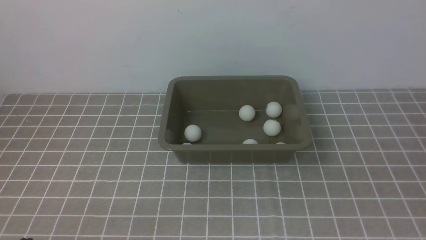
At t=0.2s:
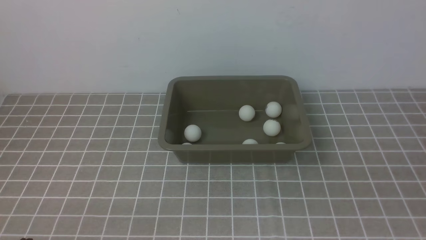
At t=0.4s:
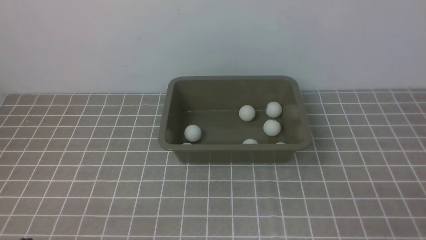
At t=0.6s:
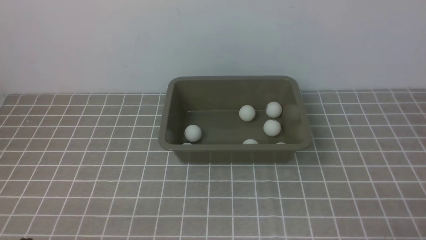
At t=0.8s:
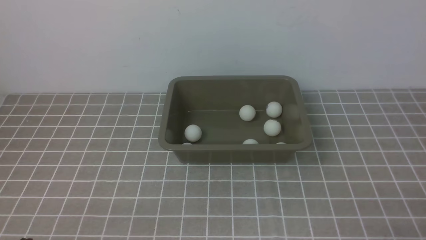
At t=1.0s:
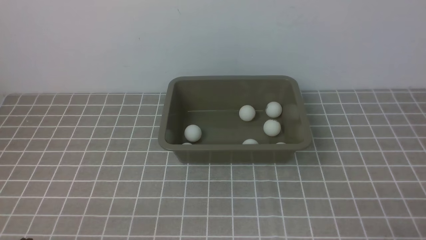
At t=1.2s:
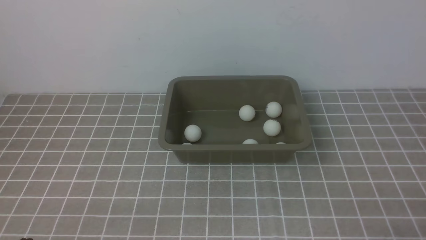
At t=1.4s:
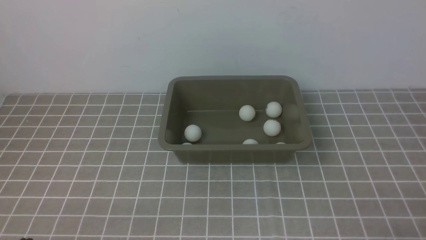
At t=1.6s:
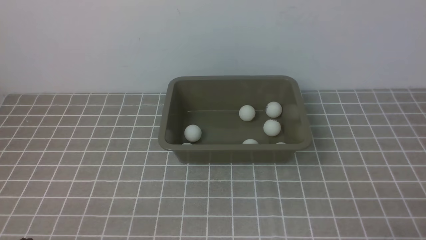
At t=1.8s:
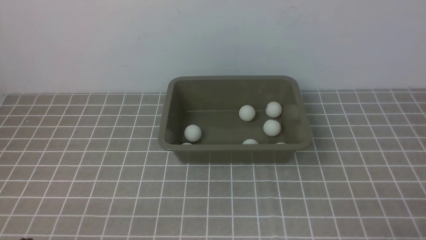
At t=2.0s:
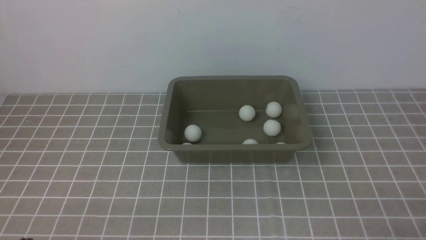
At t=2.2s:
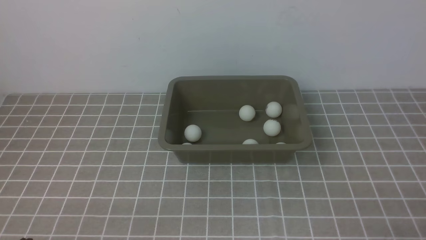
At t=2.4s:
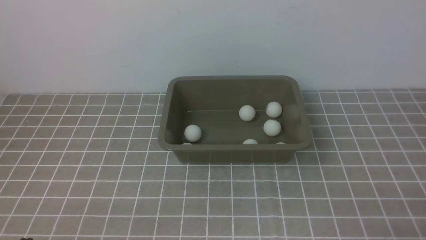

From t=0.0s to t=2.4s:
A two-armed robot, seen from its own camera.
From t=1.2s to t=2.4s: The two grippers keep their place.

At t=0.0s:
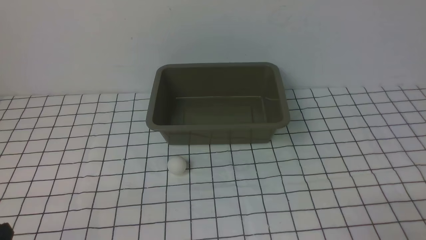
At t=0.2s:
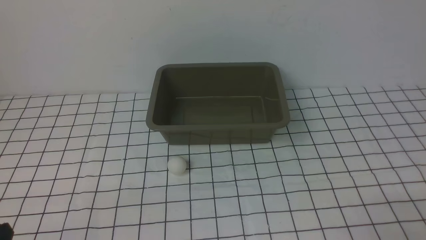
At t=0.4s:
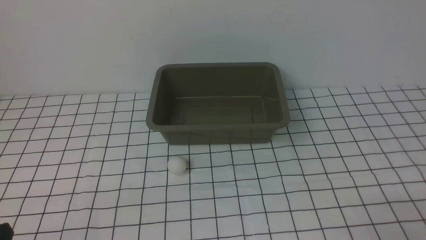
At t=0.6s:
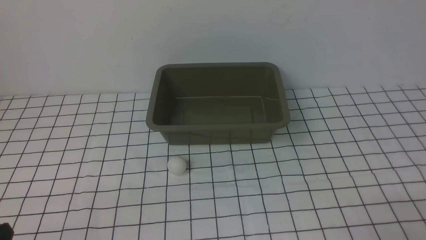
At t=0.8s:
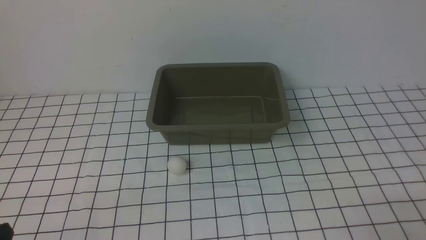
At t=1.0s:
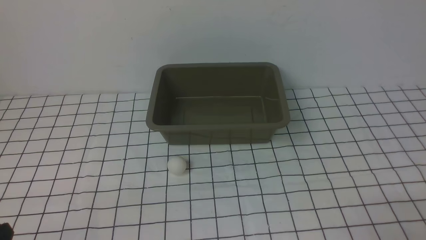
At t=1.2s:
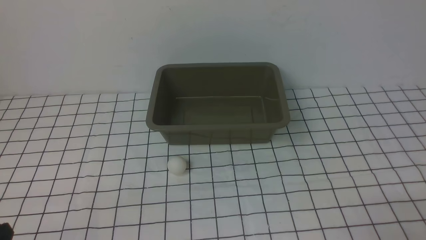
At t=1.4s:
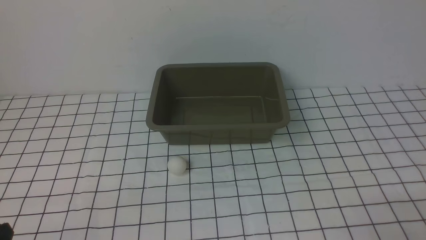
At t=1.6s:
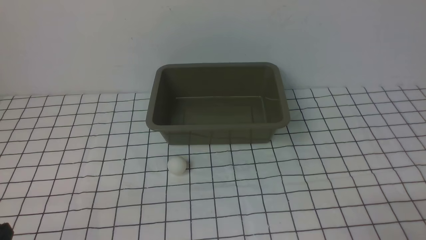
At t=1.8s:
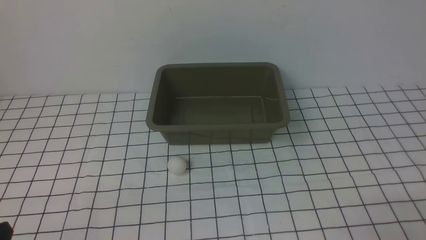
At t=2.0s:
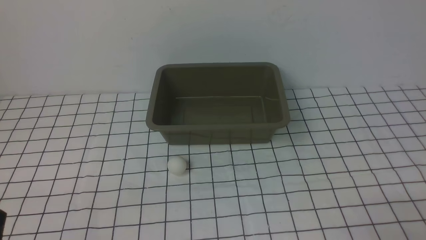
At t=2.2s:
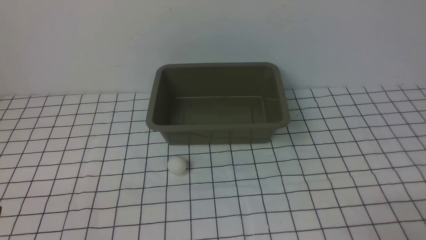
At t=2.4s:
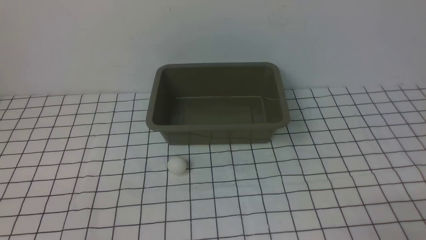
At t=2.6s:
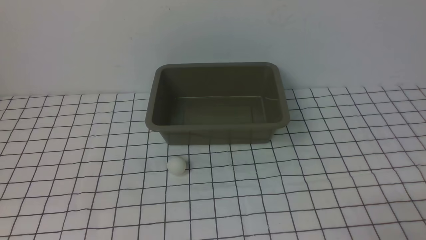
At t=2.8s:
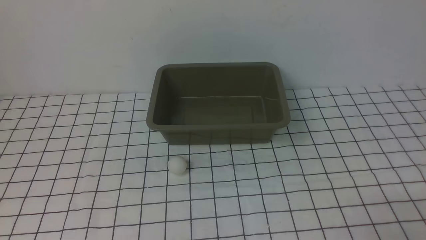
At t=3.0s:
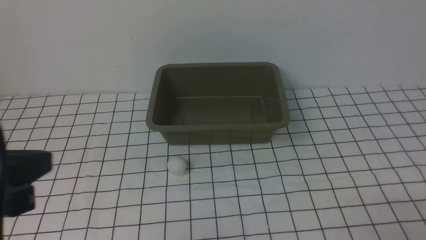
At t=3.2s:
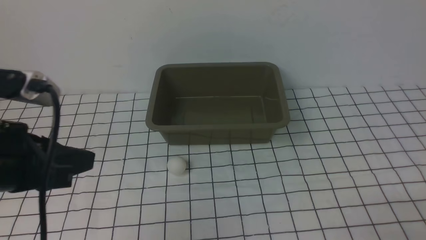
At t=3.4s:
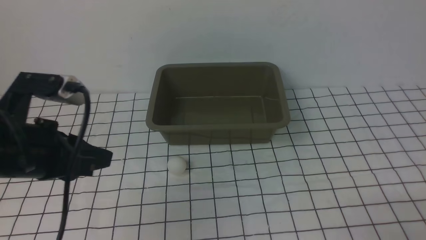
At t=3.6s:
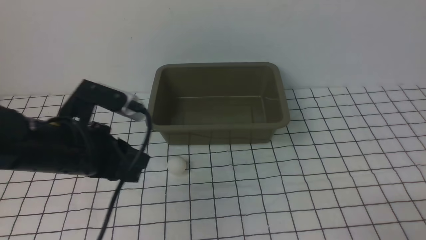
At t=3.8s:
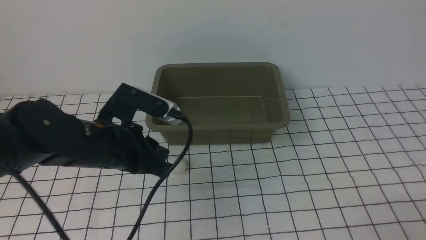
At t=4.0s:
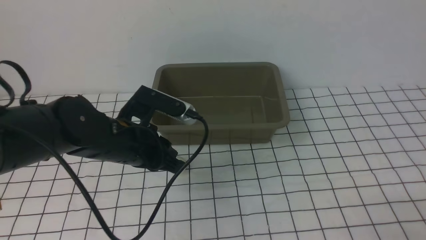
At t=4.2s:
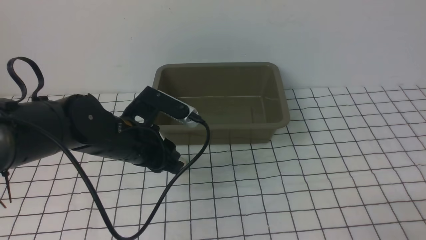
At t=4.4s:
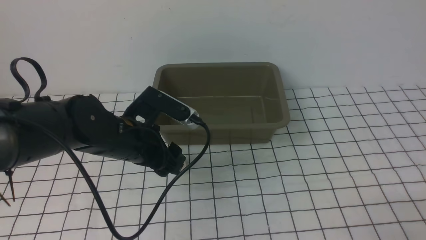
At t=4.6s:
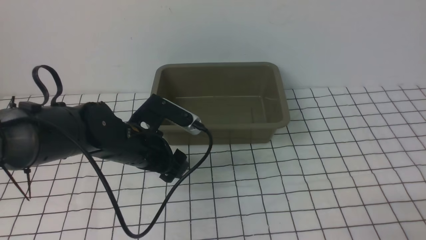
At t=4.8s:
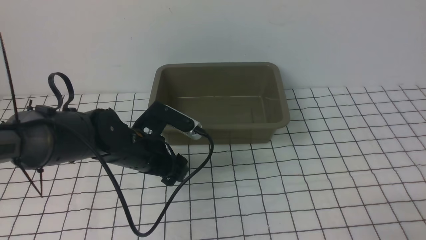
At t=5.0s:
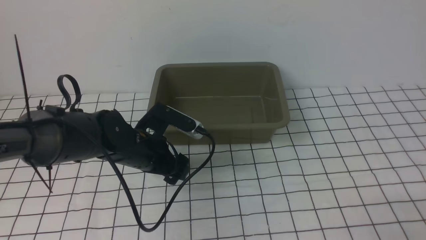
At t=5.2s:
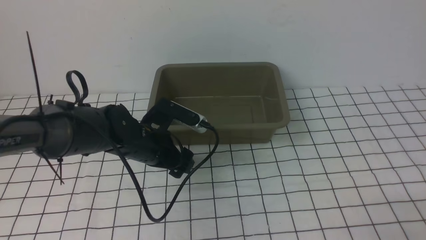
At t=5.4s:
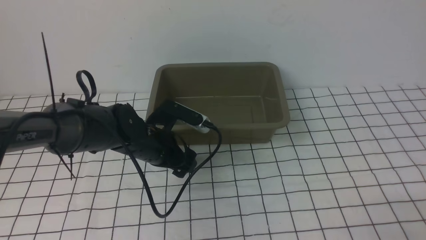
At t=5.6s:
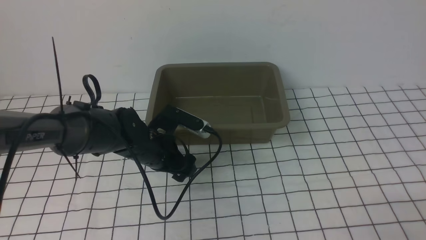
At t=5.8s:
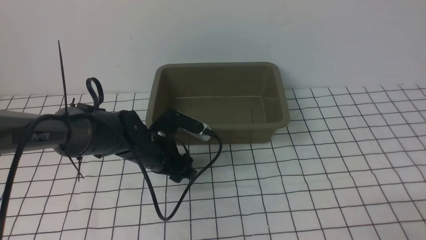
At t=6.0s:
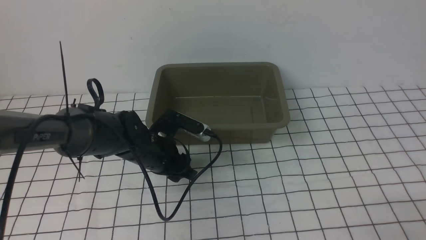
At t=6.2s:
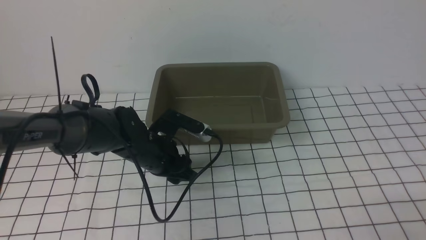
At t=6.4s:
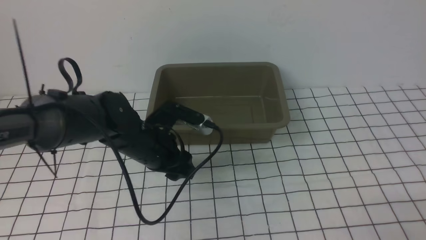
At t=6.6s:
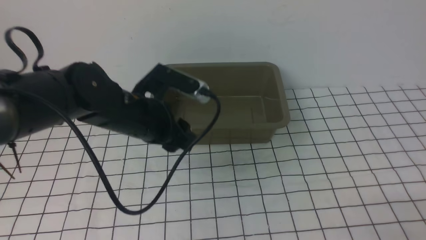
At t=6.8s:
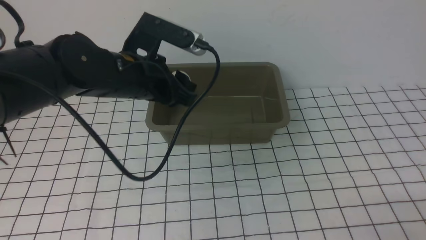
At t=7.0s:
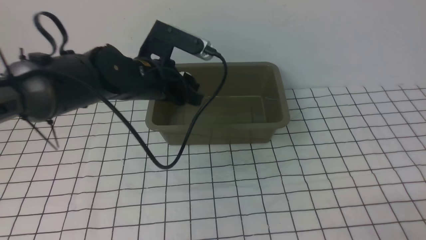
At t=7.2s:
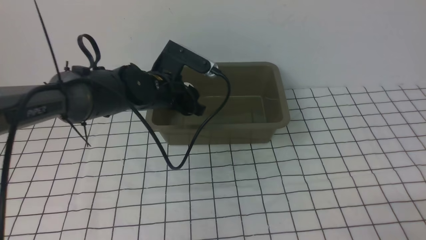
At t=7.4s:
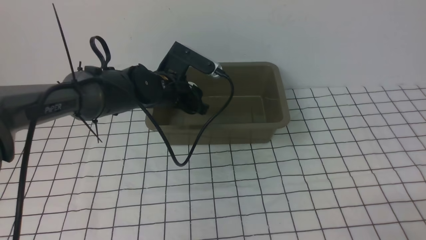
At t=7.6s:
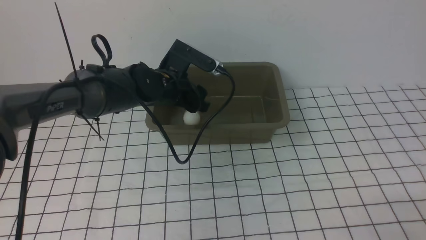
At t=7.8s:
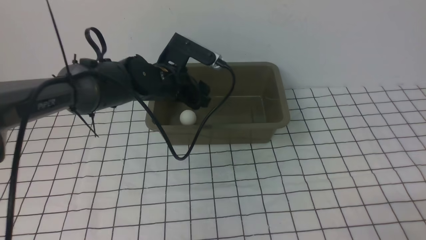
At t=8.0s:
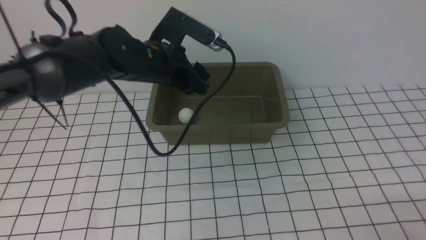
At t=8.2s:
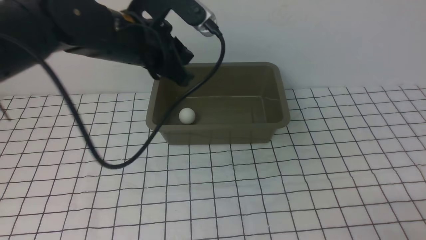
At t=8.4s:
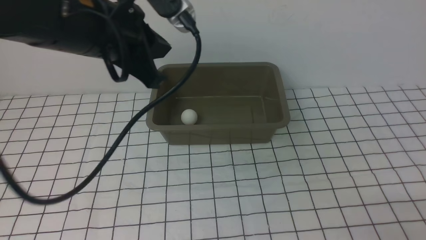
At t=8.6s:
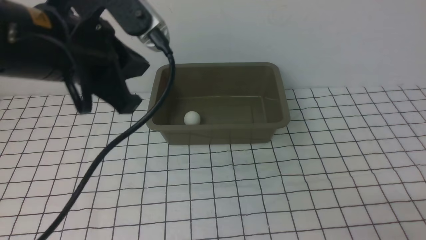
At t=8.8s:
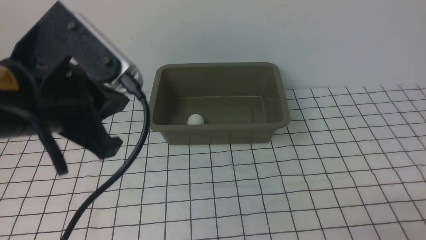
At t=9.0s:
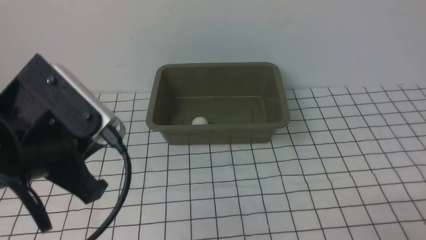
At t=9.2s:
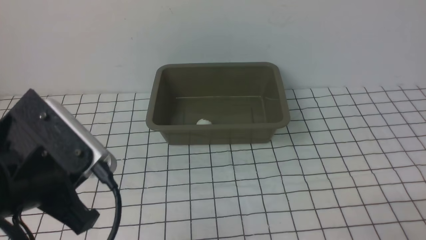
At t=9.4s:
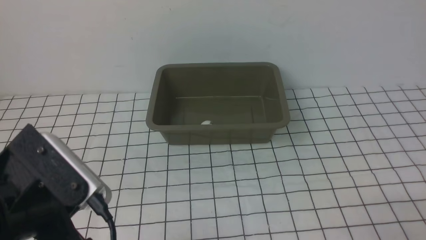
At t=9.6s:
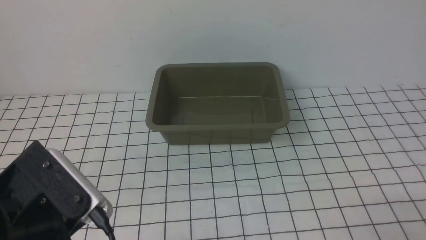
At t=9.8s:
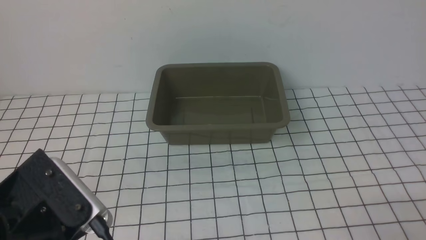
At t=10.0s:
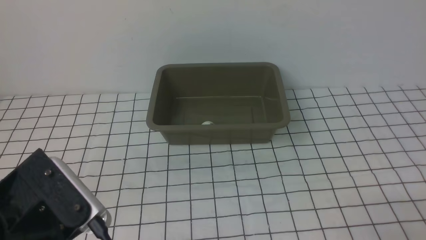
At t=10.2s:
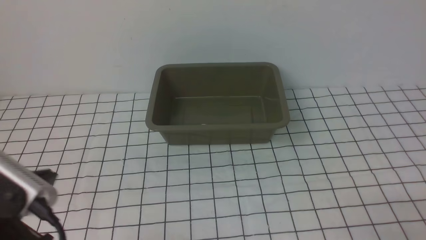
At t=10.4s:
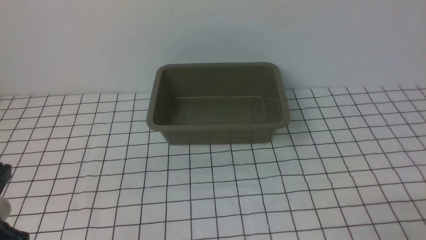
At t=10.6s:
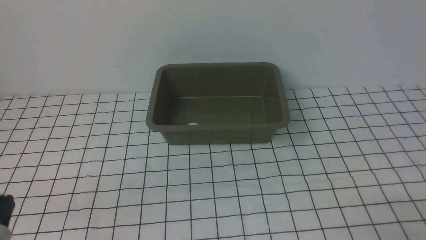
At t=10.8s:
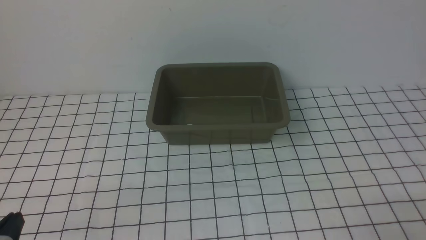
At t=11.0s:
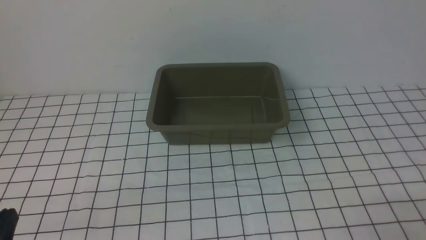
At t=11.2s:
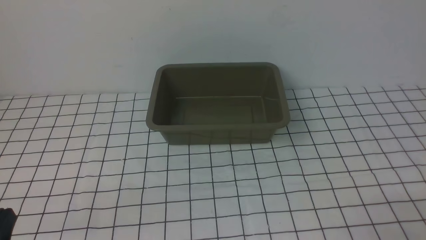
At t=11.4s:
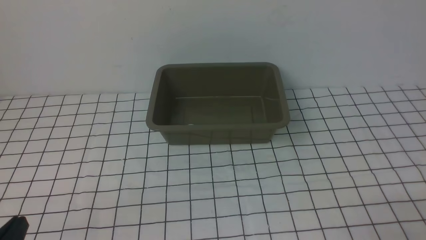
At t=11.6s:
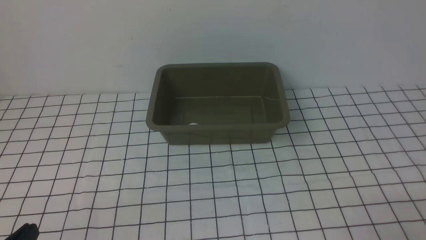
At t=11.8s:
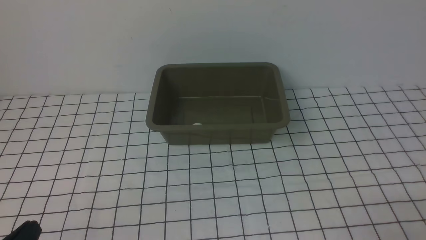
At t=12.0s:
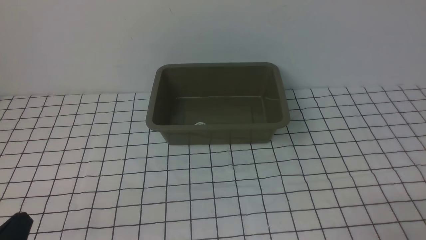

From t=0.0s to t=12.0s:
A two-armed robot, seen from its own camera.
Step, from t=0.0s to t=6.4s: use the left arm to clamp the table tennis ball closest to it.
Step, from t=6.6s to t=7.8s: use the left arm to put the table tennis ball into the box.
From t=0.0s to t=1.6s: Both grippers stay put.
From t=1.6s to t=3.0s: The left gripper goes approximately 20 cm upward and forward.
From t=3.0s to t=4.4s: The left gripper travels forward, downward and to the right by some 25 cm, and opens its fingers.
From t=4.4s to t=6.0s: The left gripper closes.
From t=6.0s to t=7.6s: The left gripper moves up and down over some 15 cm, changing direction 2 times.
From t=7.6s to t=9.0s: The left gripper travels backward by approximately 25 cm, and closes its fingers.
From t=9.0s to t=10.4s: The left gripper travels downward, backward and to the left by some 15 cm.

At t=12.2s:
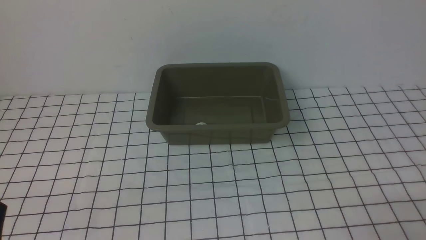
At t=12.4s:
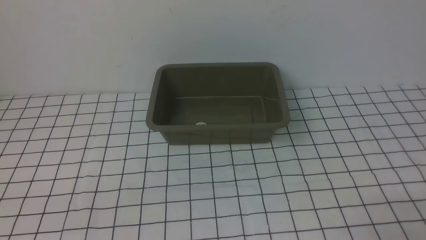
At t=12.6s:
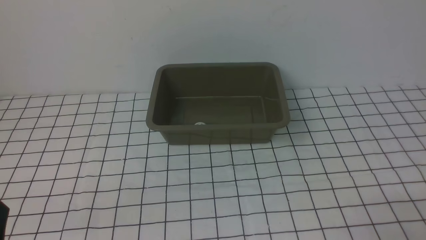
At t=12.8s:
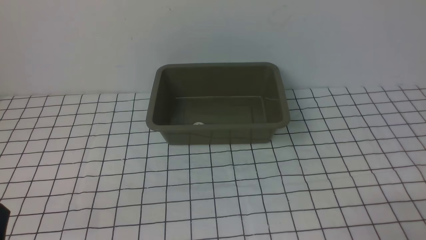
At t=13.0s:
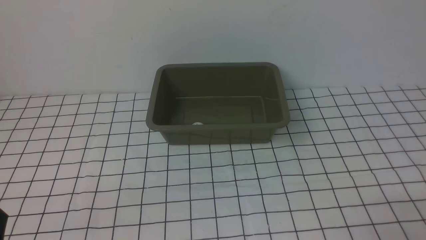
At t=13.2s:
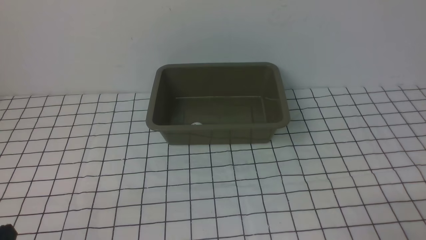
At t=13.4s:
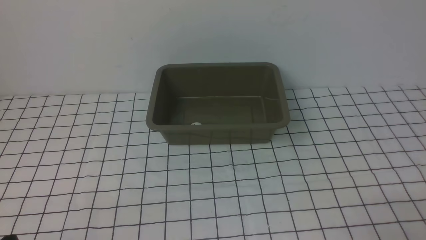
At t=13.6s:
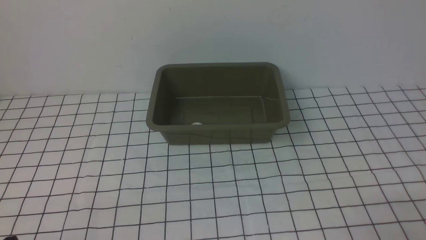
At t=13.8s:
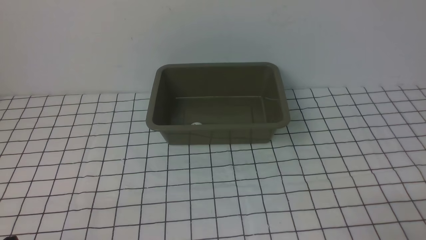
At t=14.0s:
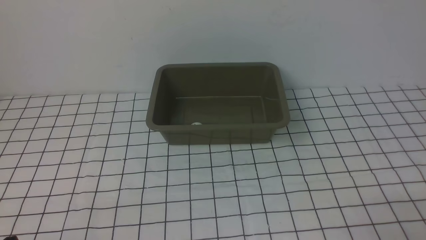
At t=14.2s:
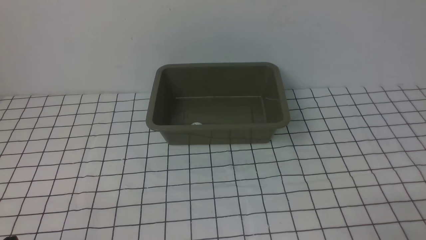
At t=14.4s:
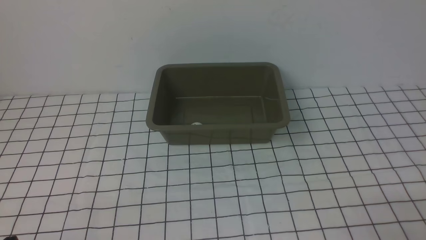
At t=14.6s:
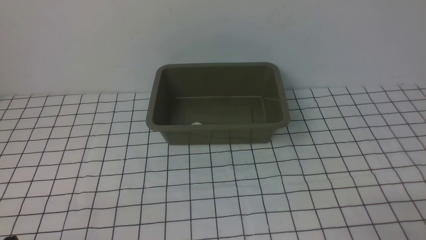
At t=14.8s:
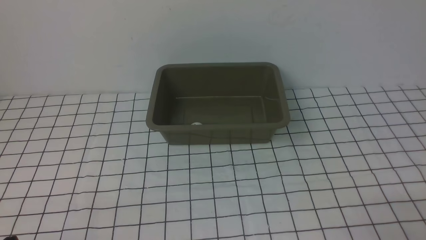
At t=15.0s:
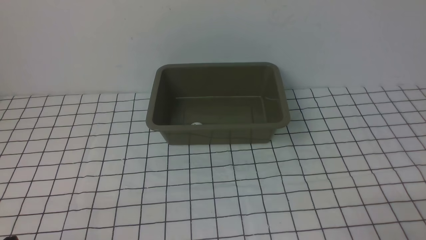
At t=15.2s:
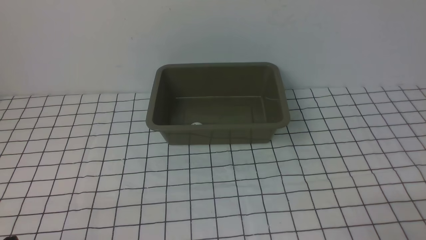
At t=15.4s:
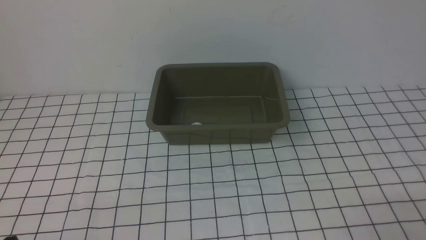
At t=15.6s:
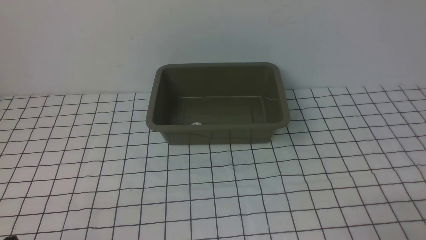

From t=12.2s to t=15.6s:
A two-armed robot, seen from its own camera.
From t=13.8s to t=15.6s: Both grippers stay about where they are.
